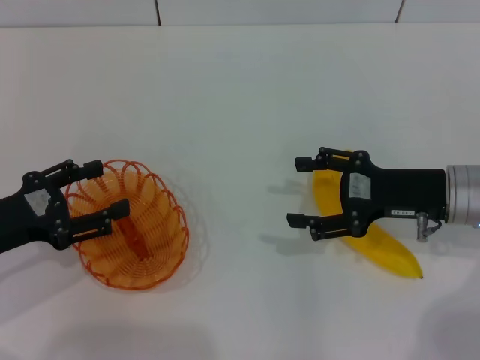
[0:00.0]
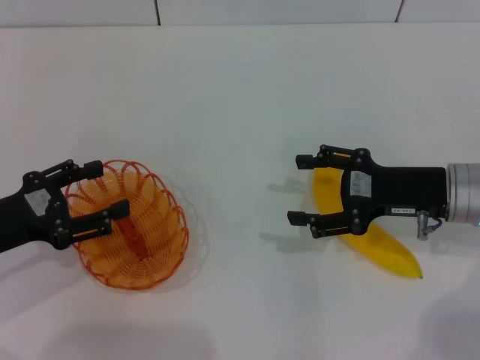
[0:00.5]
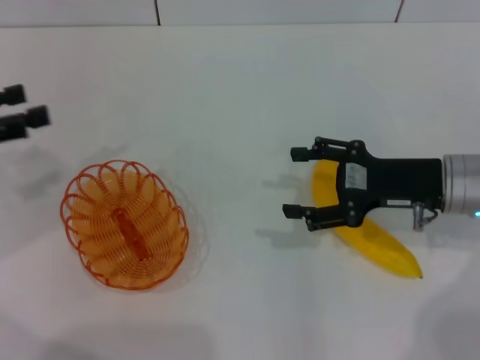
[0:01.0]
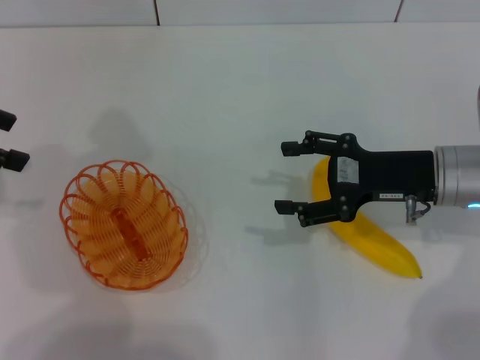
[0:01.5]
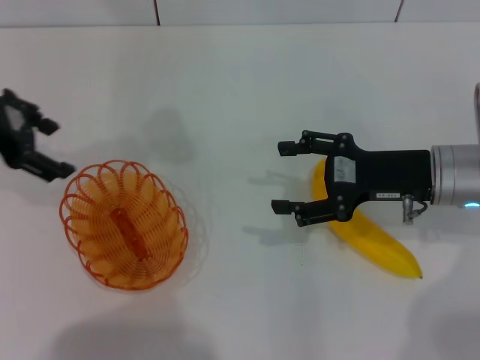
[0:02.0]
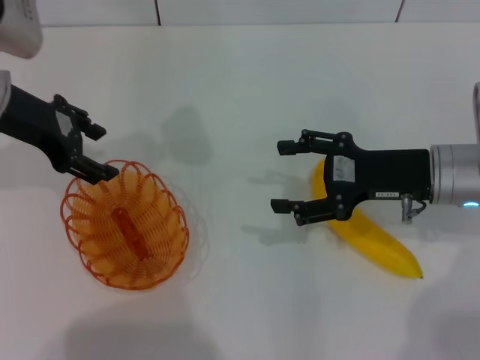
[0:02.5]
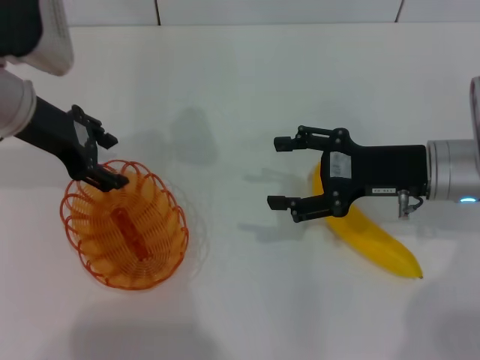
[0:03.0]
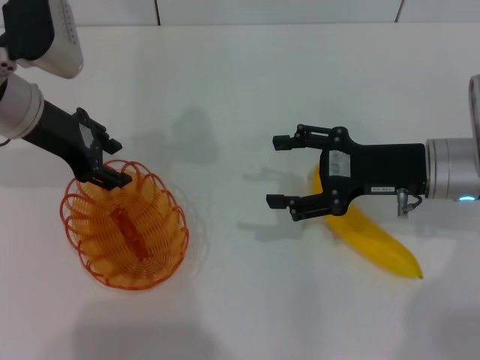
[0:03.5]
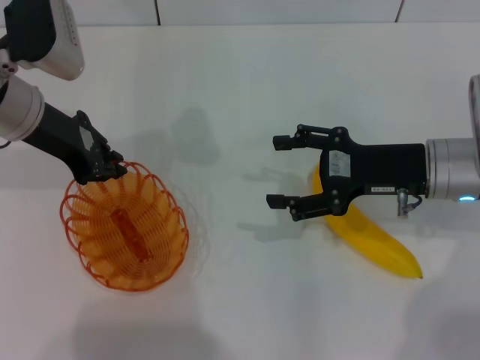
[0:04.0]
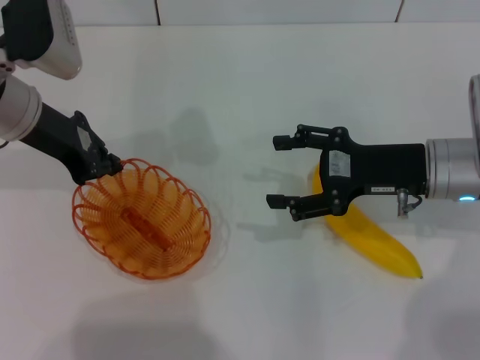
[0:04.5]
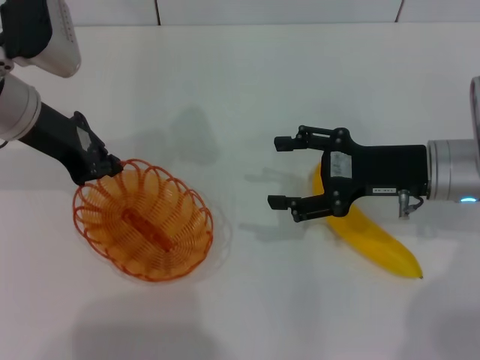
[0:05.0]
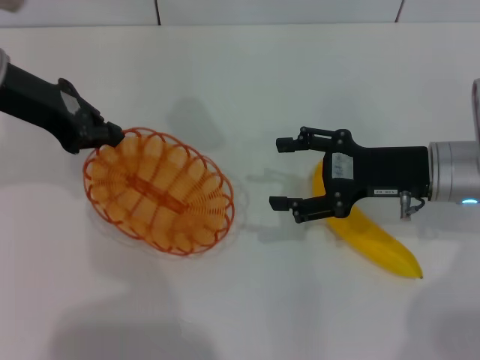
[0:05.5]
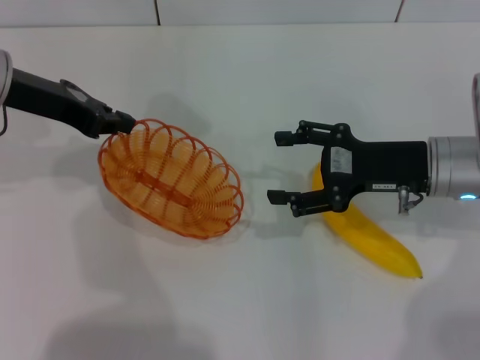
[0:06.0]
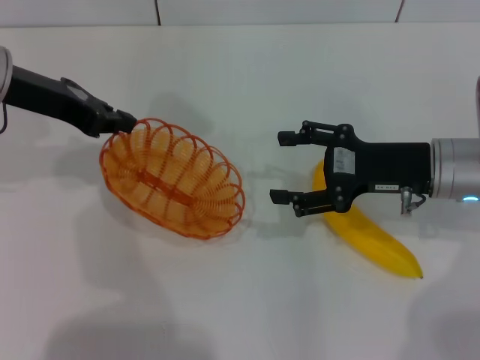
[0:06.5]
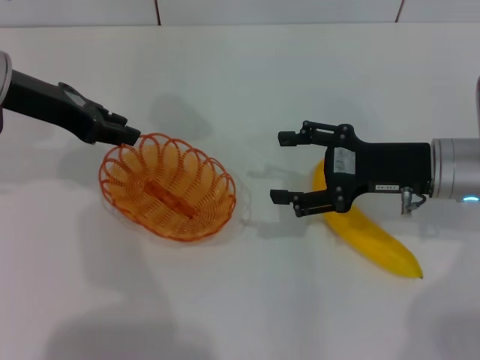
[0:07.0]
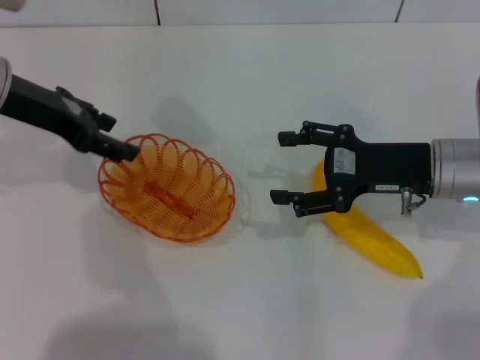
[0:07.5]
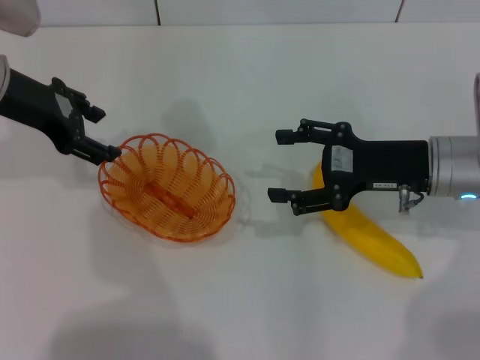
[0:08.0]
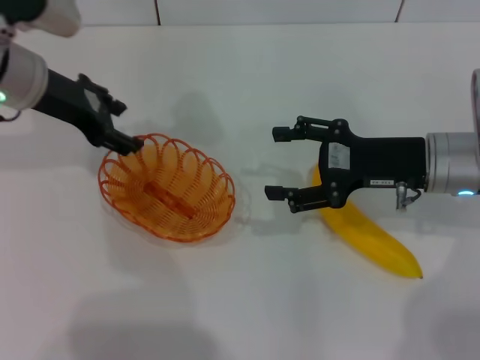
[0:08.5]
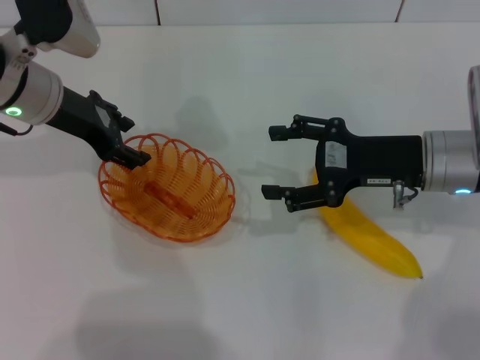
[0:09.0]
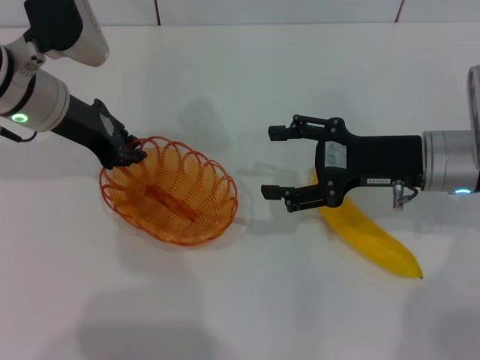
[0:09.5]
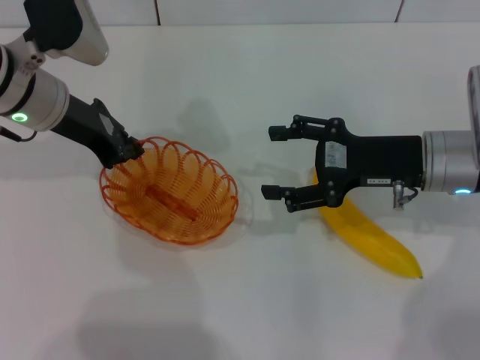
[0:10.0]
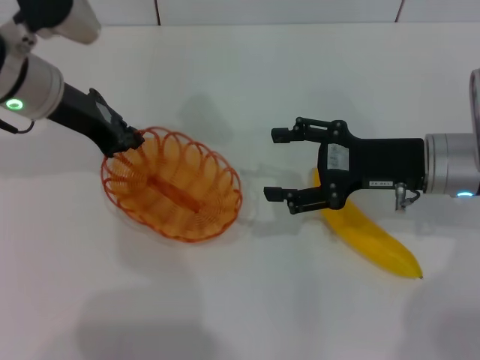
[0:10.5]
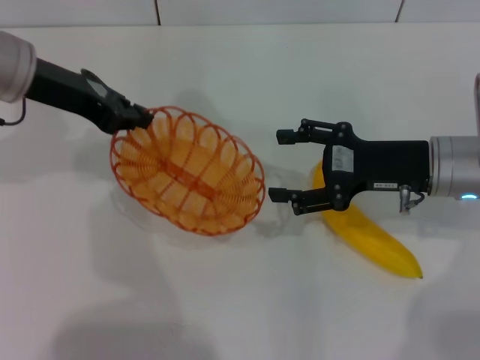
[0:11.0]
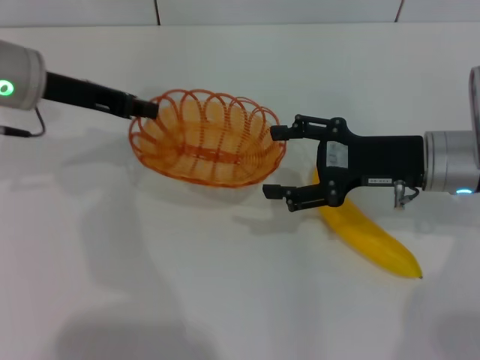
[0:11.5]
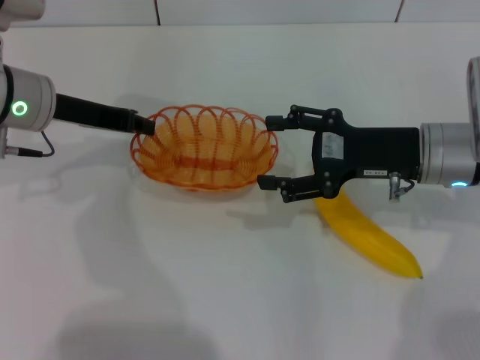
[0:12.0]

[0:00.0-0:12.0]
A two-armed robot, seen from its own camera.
Step, 0:00.0 to 0:10.5: Pick up the basket with the left gripper.
0:00.0 to 0:02.0: The left gripper heads upward and forward, covering approximately 20 cm.
0:02.0 to 0:04.0: The left gripper moves to the right, some 5 cm, and closes up.
0:04.0 to 0:06.0: The left gripper closes its fingers.
0:06.0 to 0:08.0: The left gripper opens up.
0:08.0 to 0:10.0: The left gripper ends up some 5 cm from where it was, and closes its fingers.

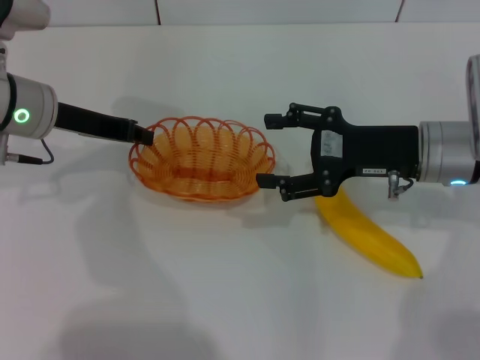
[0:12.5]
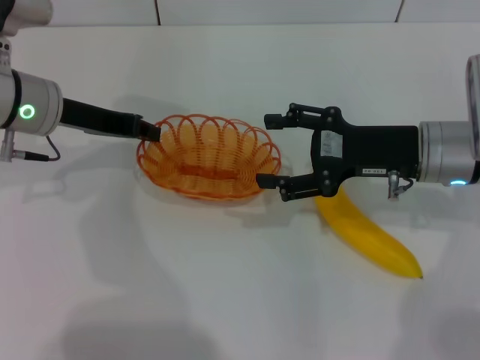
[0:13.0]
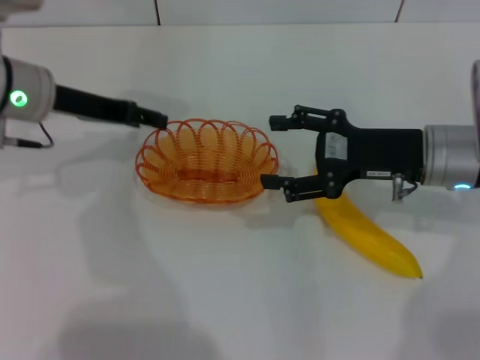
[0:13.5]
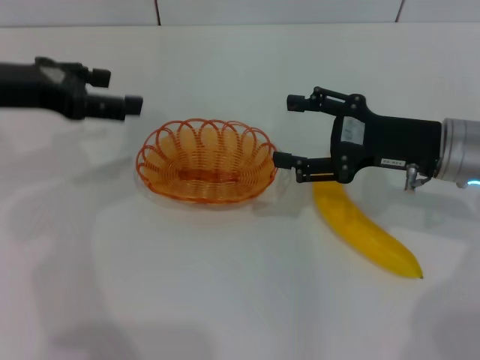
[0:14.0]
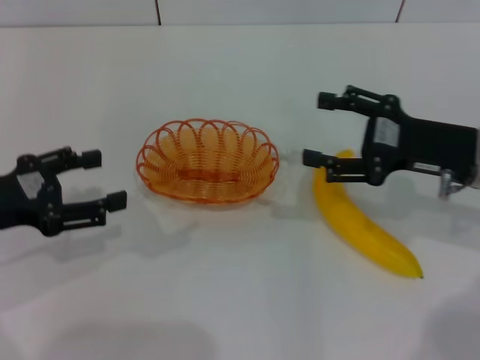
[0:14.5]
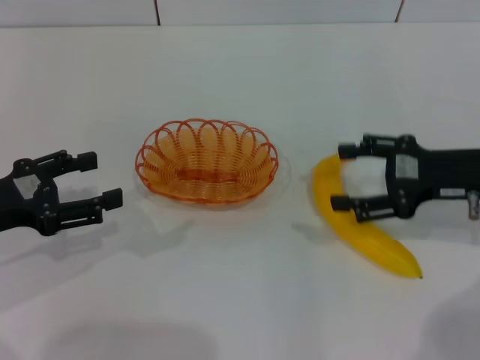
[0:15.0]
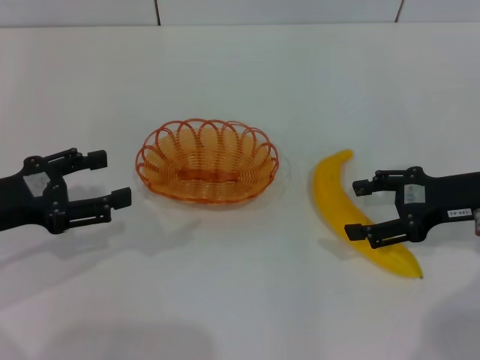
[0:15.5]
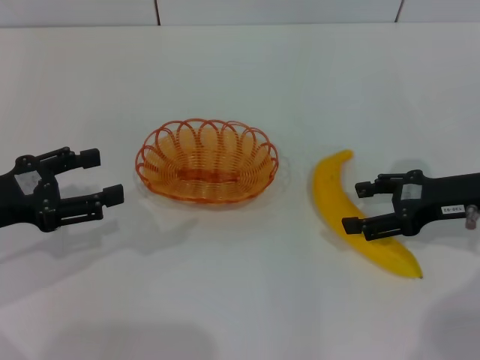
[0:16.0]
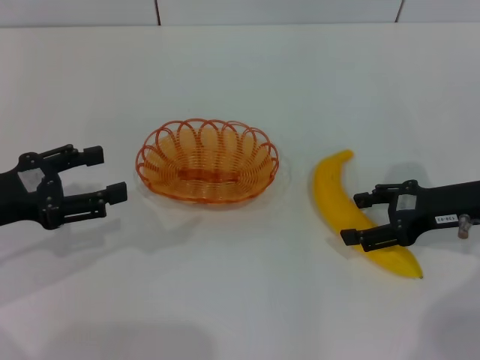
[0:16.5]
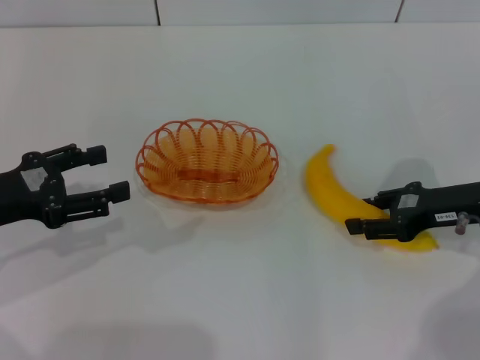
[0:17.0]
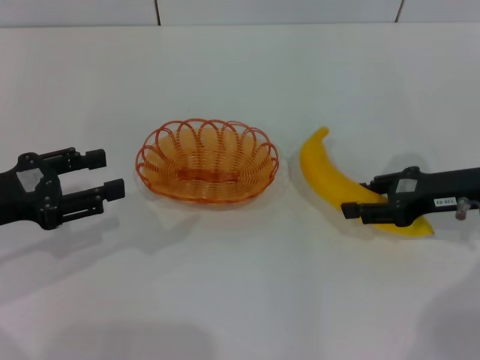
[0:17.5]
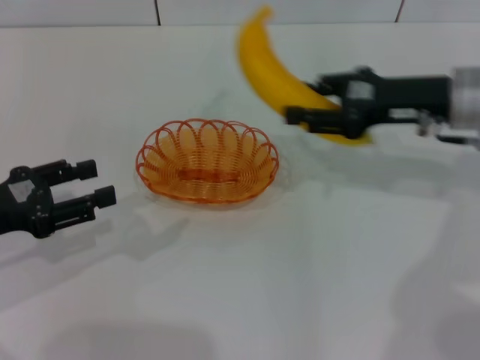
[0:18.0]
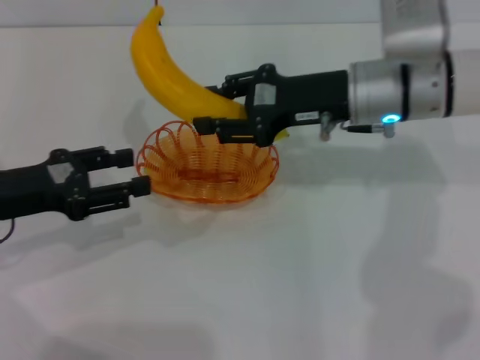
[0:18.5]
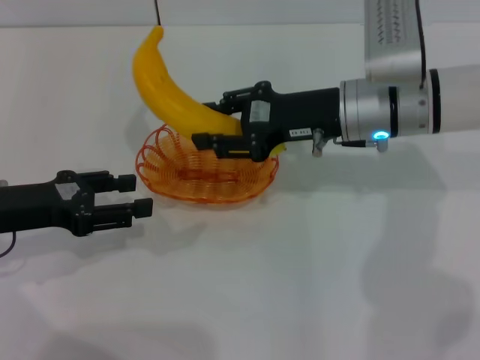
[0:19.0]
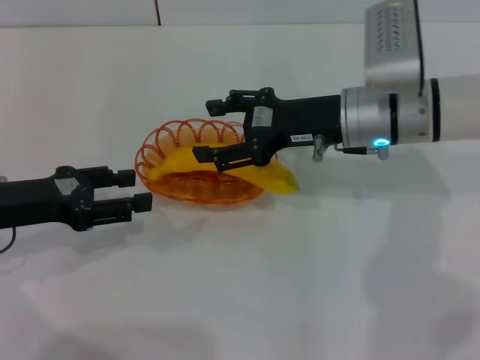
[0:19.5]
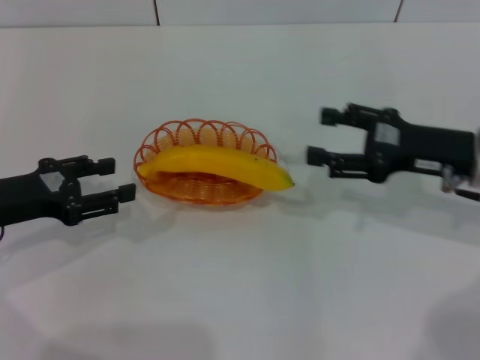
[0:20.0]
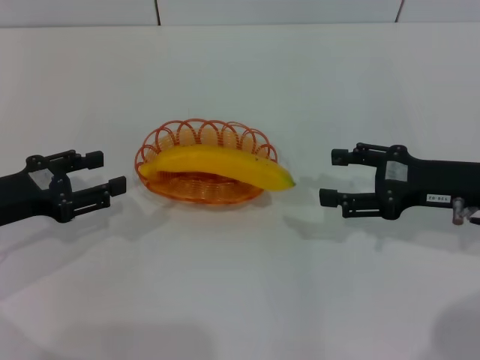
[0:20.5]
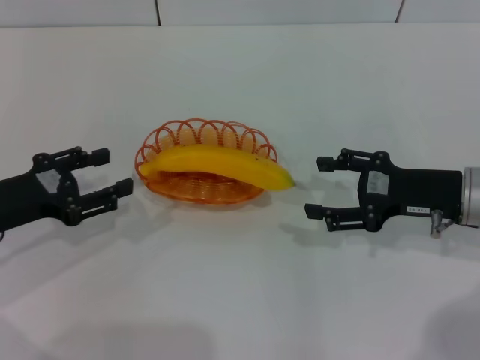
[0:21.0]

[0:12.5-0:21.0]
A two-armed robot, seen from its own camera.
Step, 0:14.0 to 0:17.5: Pick up the banana with the right gripper.
Step, 0:18.0 to 0:19.5: Place the banana into the basket with the right gripper.
0:12.5 to 0:14.5: The right gripper ends up approximately 5 cm from where it was, while the left gripper travels backward and to the left by about 15 cm, and opens its fingers.
0:16.5 to 0:19.0: The right gripper goes roughly 15 cm to the left and forward, and closes its fingers.
0:19.0 to 0:21.0: The right gripper heads to the right and backward, covering approximately 15 cm, and opens its fingers.

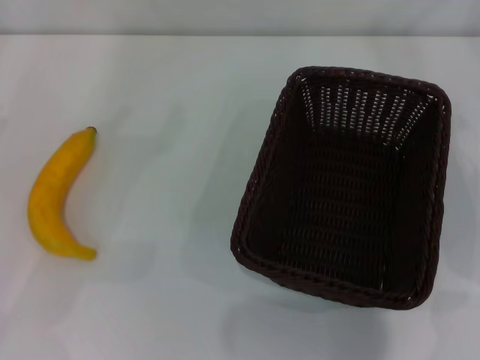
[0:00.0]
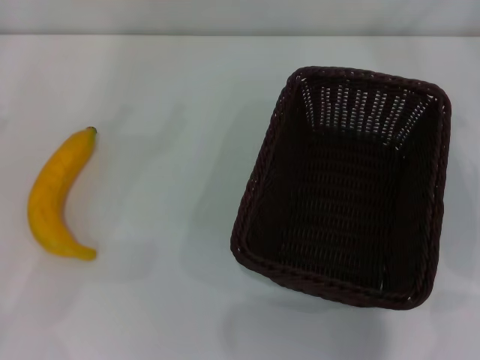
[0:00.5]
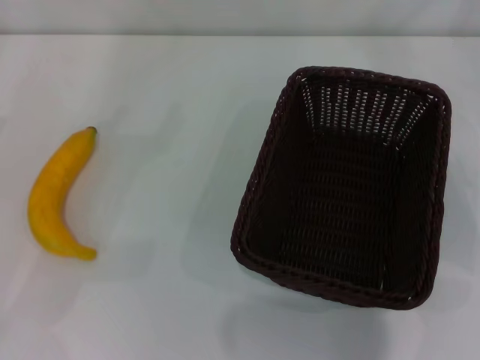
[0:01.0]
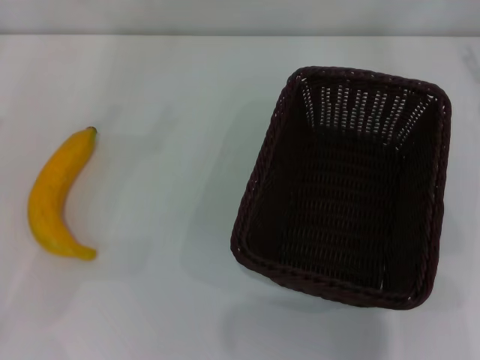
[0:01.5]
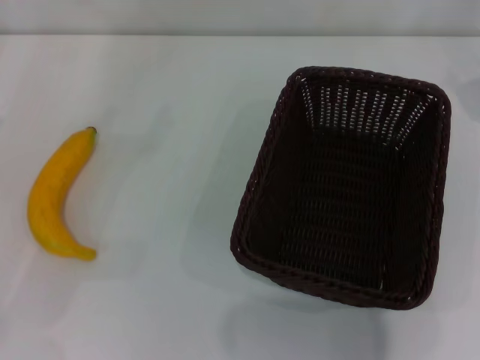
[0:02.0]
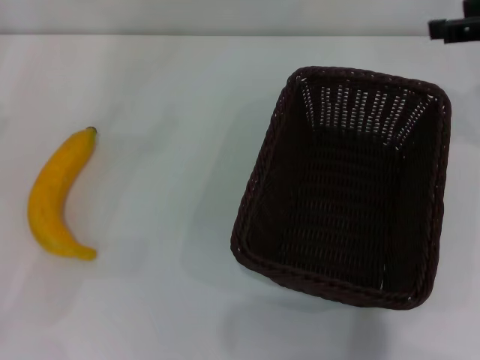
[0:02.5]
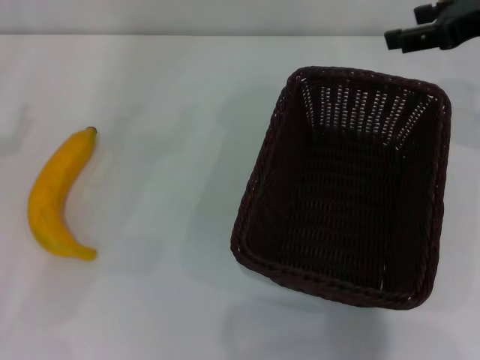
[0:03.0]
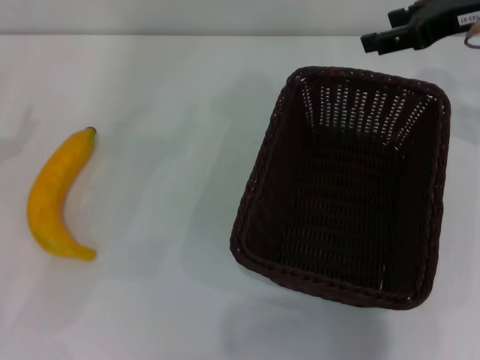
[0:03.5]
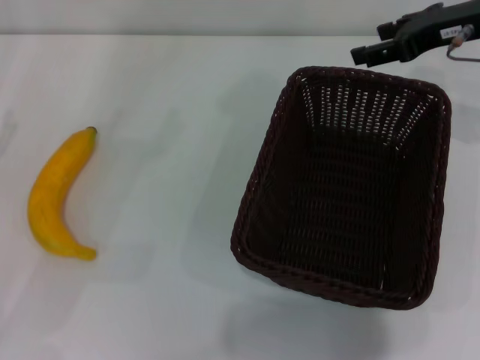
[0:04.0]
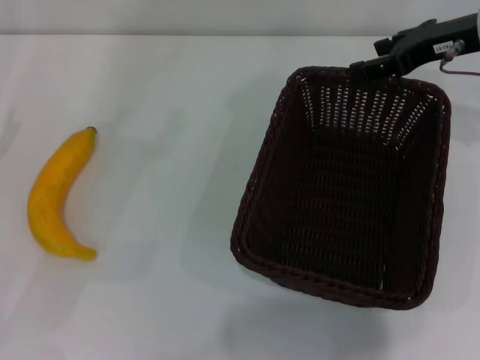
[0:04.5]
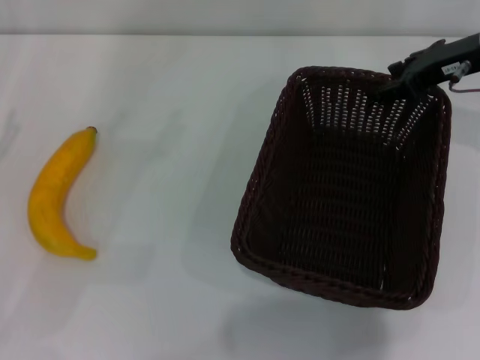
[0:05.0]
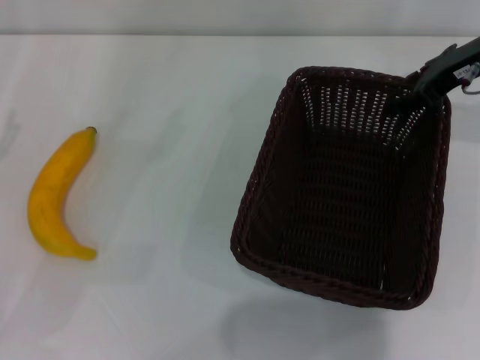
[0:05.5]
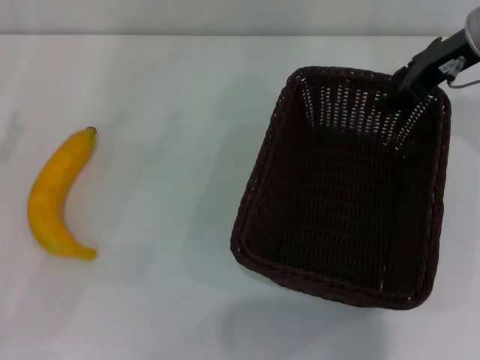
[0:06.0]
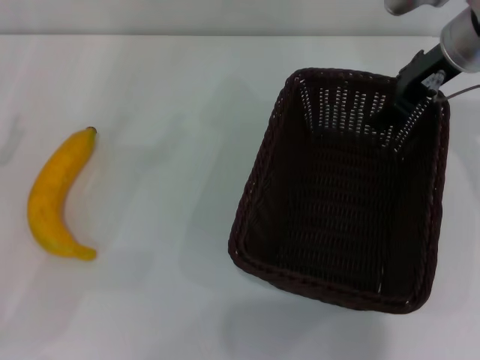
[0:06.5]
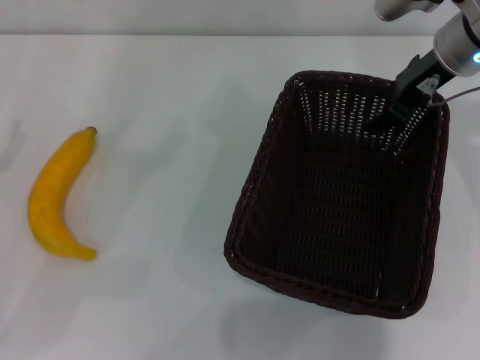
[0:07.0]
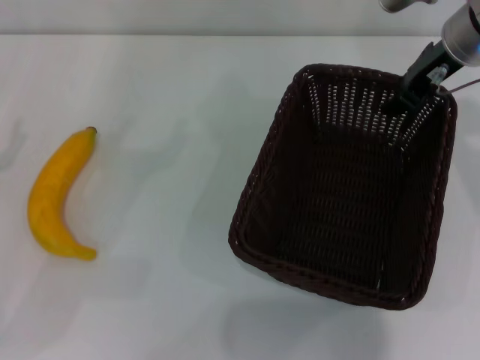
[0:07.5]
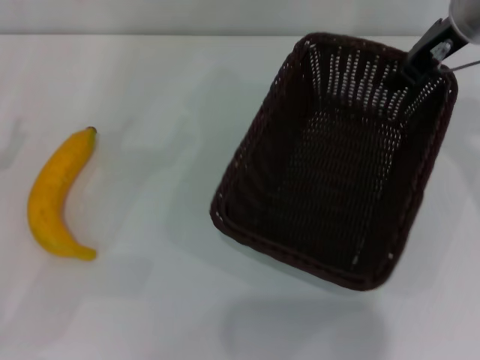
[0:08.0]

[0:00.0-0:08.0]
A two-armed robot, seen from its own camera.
0:02.0 to 0:04.0: The right gripper is displaced to the left by roughly 10 cm.
0:06.0 to 0:08.0: The right gripper closes.
